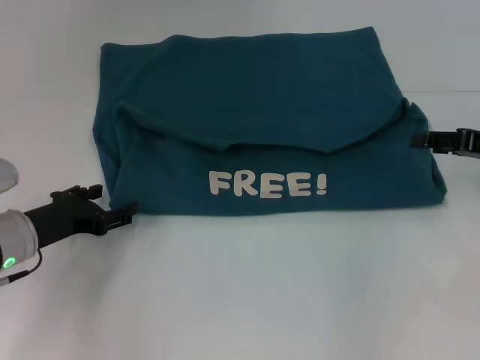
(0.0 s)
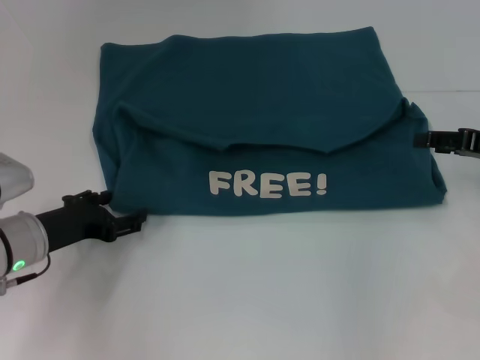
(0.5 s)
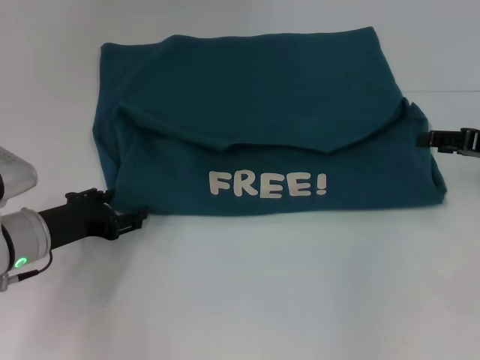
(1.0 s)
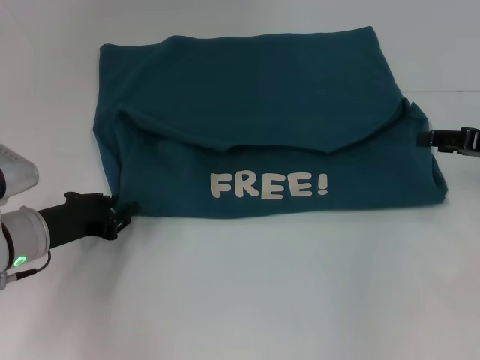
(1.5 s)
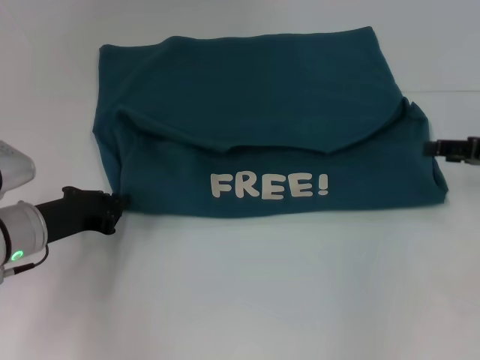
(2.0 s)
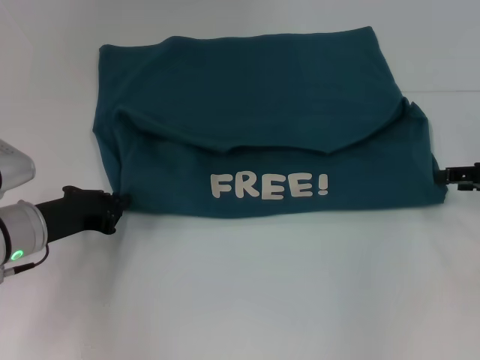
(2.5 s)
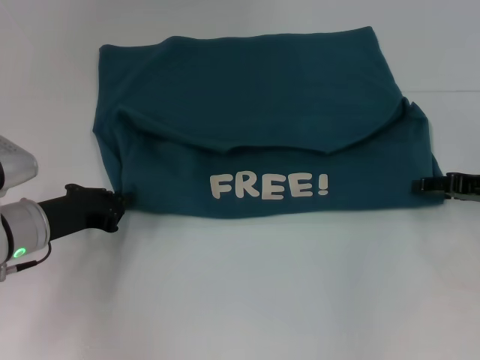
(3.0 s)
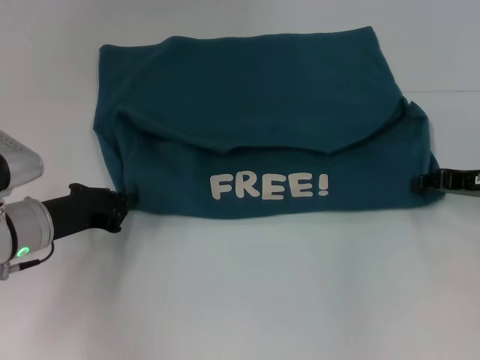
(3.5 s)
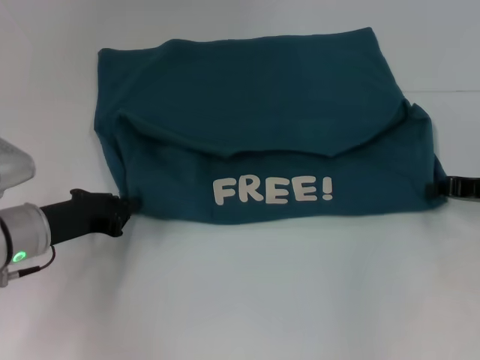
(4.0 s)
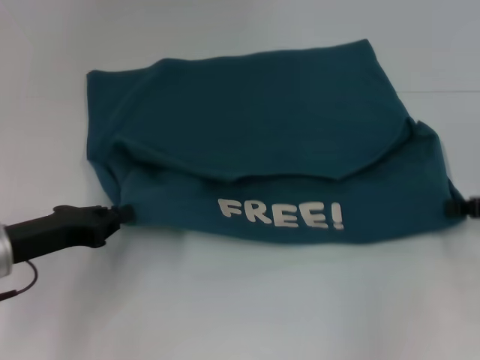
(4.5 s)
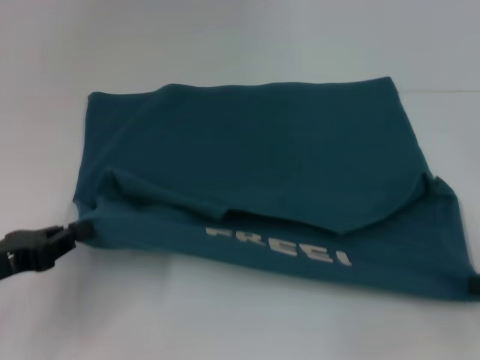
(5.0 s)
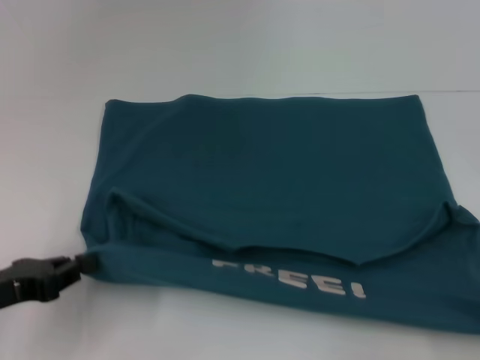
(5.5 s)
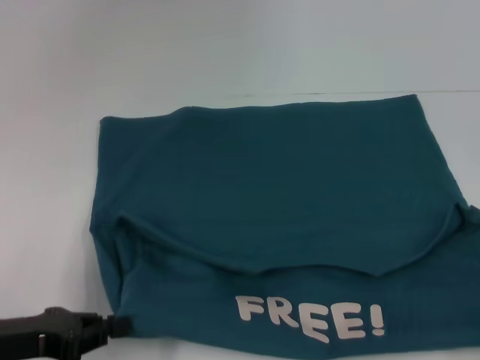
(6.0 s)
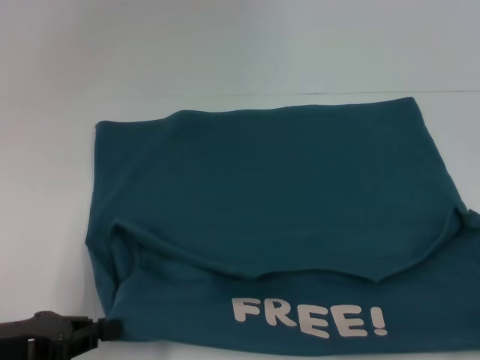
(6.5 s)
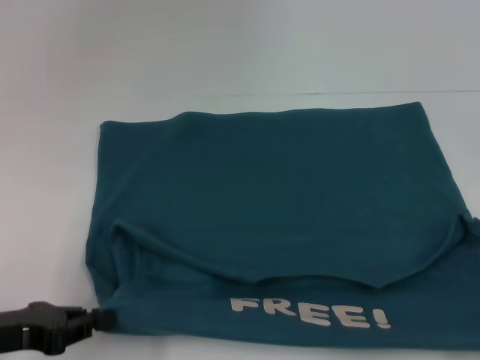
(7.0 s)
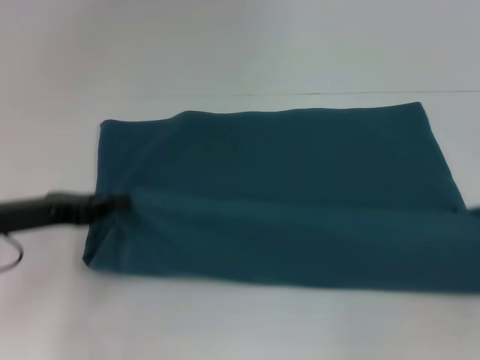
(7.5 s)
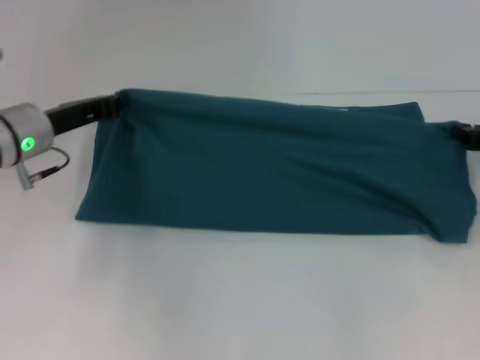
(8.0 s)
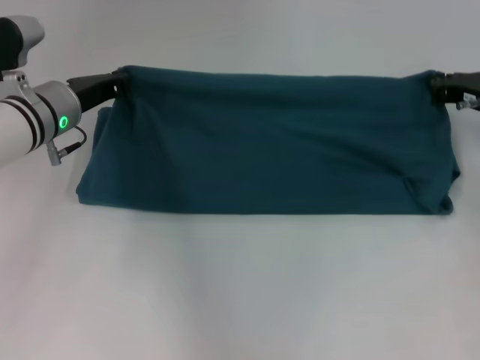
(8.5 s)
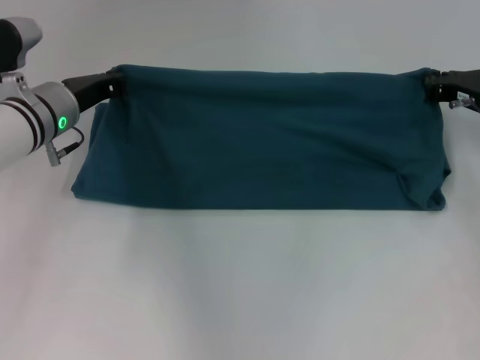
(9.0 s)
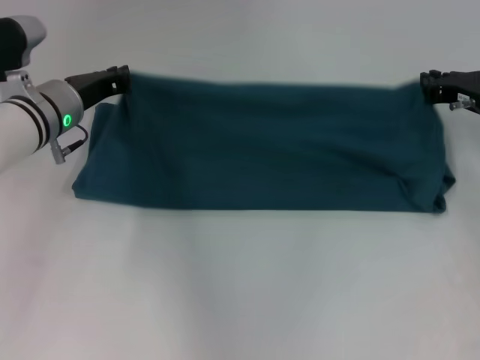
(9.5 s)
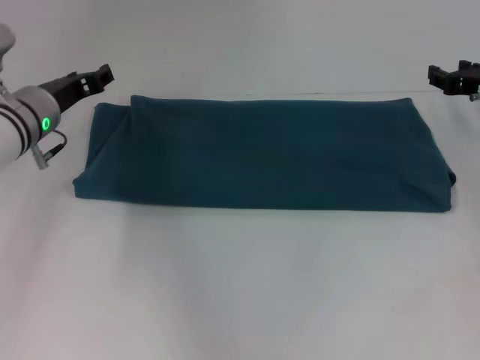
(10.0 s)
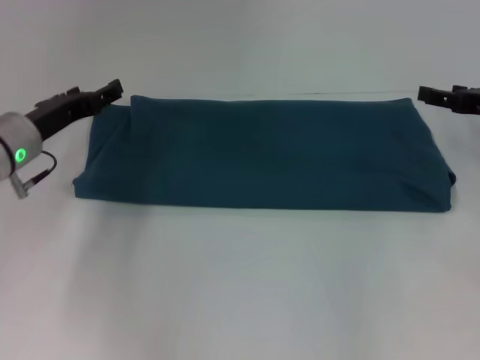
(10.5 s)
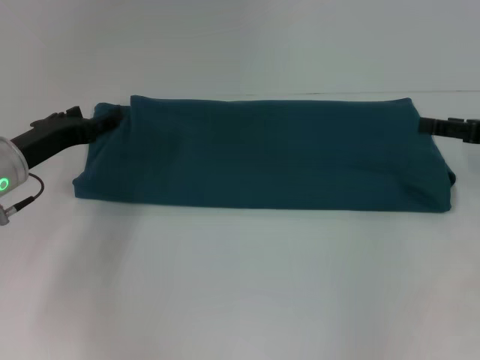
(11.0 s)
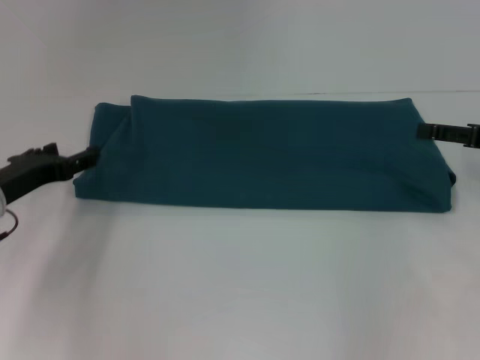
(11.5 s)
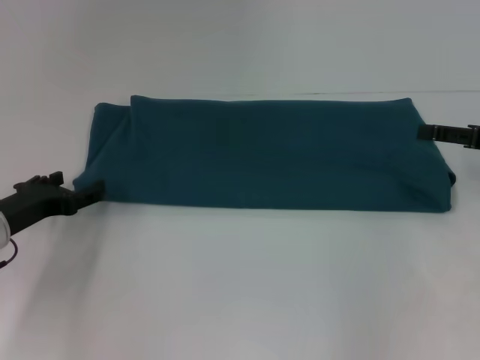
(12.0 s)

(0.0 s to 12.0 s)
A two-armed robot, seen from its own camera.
Step, 0.0 s - 6.5 s: Pull the clothes with your left hand.
Step, 0.0 s - 6.5 s: Pull the clothes with your right hand.
Step, 7.0 s - 10.5 s: Fold the clothes to the right.
0.0 s - 2.0 s: The left gripper closes its fingers.
2.0 s - 4.0 s: The right gripper closes up.
4.0 s - 6.0 s: The right gripper moves backward and to the right, approximately 20 cm. Meanwhile the left gripper shifts some 10 cm backward.
6.0 s - 8.0 s: The two grippers go roughly 20 cm forward.
8.0 s - 10.0 s: The right gripper changes place by roughly 5 cm, and opens. The left gripper opens its fingers.
10.0 s - 12.0 s: The left gripper is displaced backward, to the left and downward by about 15 cm, and opens its fingers. Meanwhile the right gripper is displaced backward by some 10 cm, and opens.

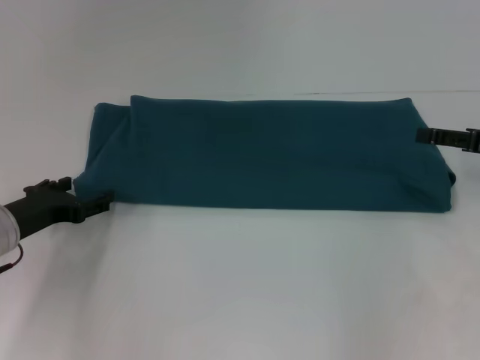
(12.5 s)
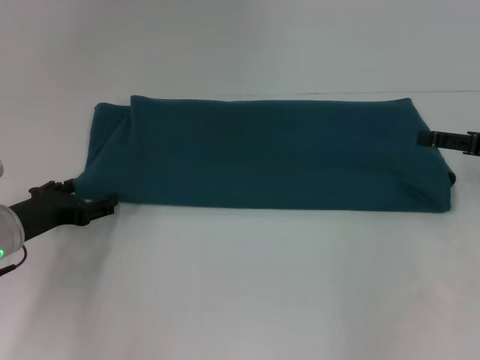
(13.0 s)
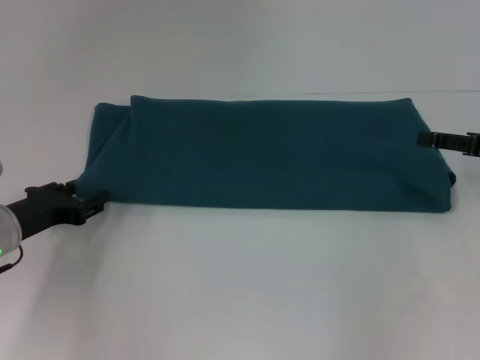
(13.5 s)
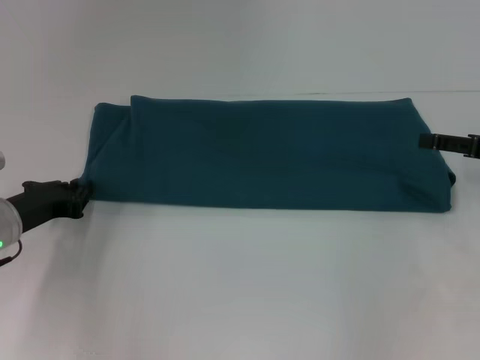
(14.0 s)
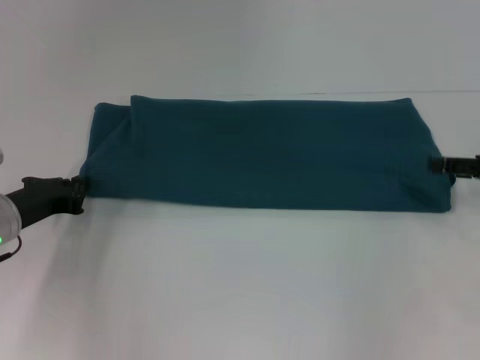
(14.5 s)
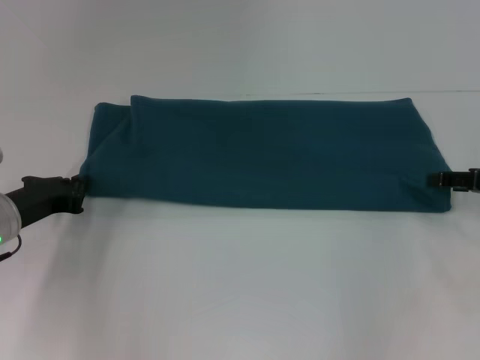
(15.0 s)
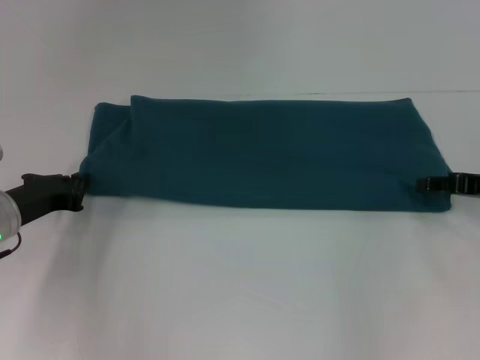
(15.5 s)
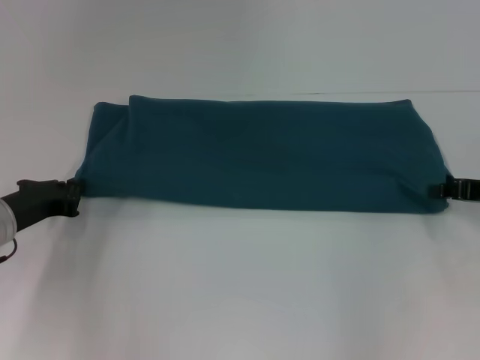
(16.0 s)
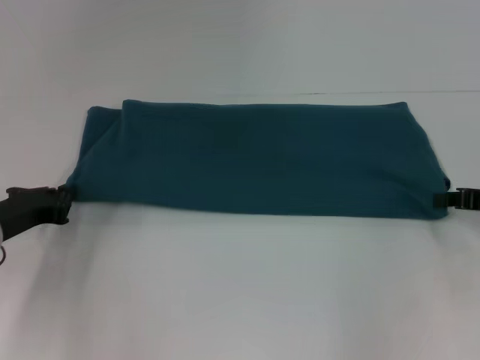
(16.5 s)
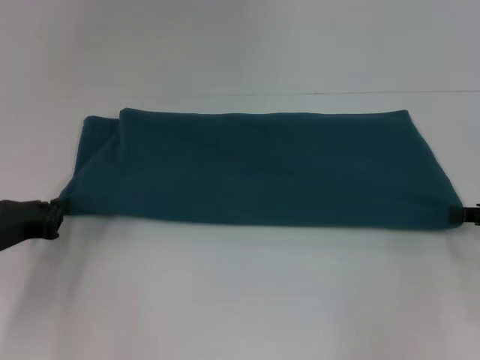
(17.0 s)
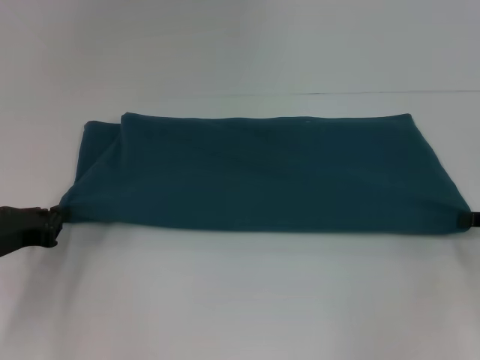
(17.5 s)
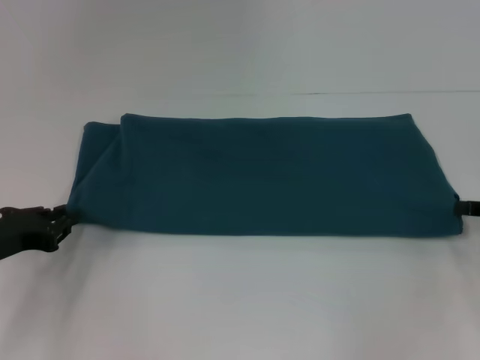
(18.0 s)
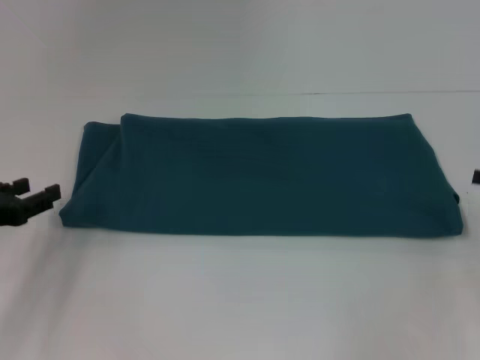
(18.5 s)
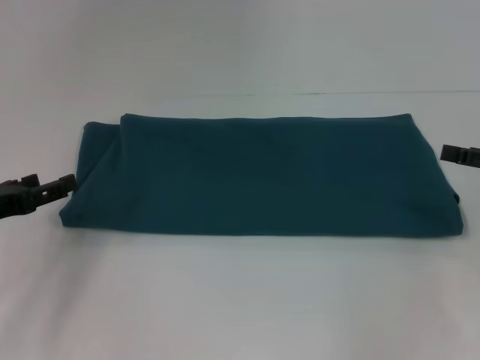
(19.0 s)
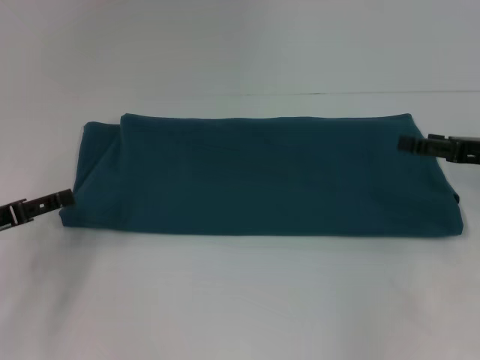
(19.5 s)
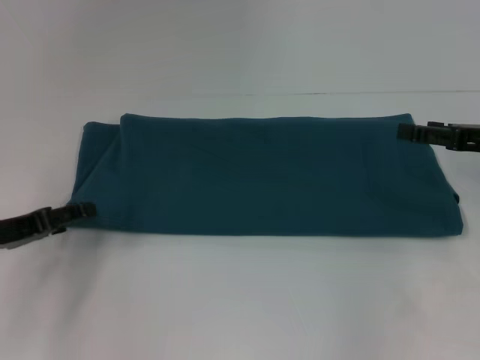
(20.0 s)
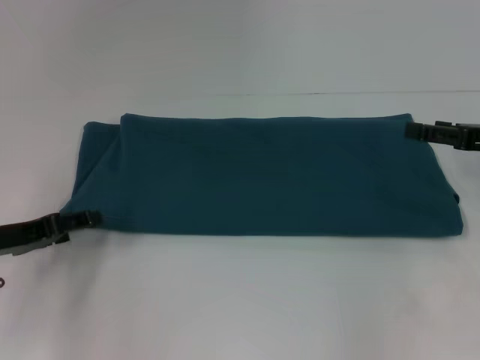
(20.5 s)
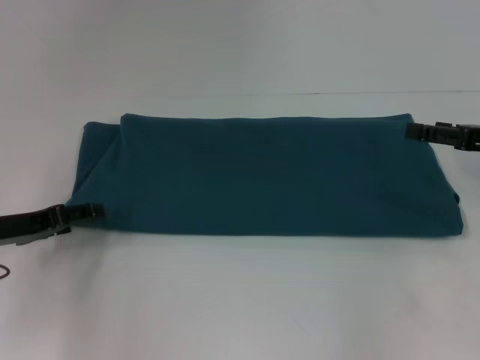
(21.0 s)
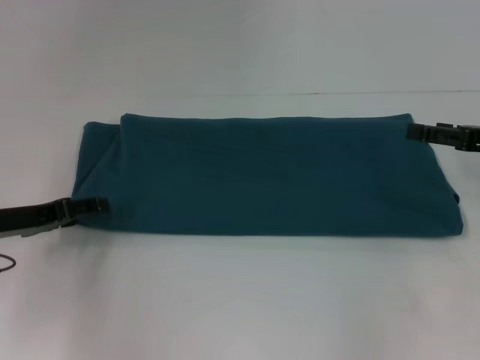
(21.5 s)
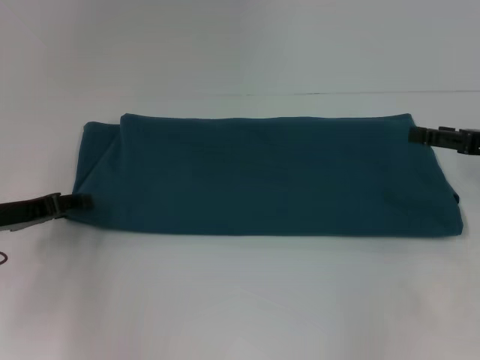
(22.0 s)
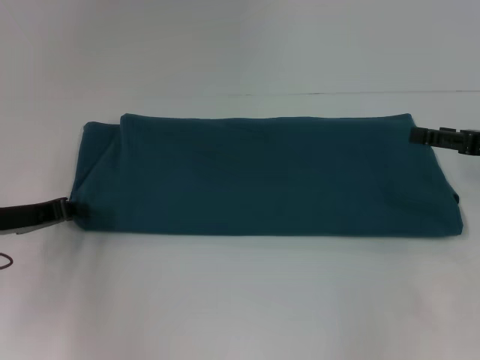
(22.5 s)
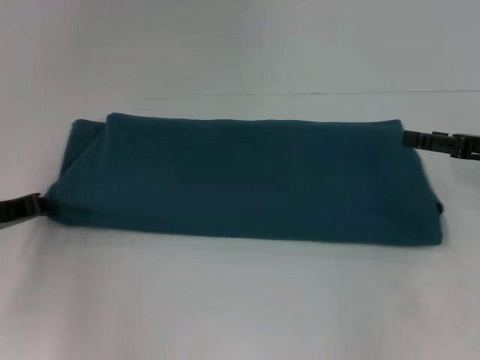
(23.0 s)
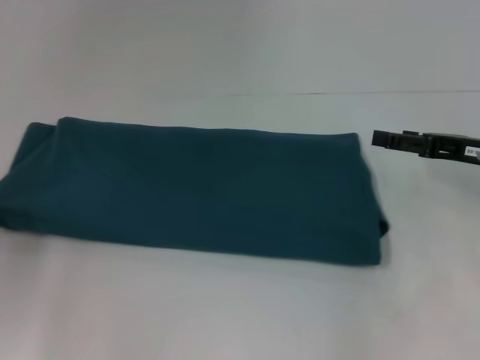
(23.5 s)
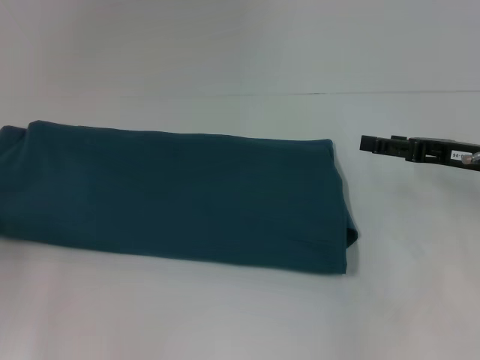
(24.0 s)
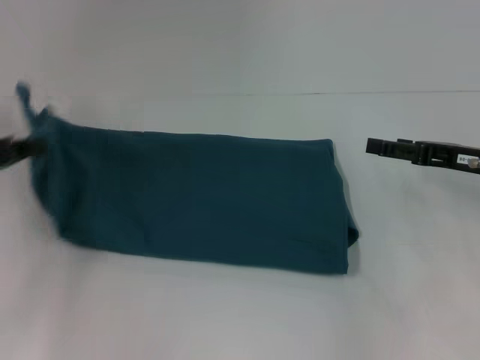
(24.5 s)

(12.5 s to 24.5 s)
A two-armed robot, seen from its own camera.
12.5 s - 14.5 s: The left gripper closes up.
14.5 s - 16.5 s: The right gripper closes up.
16.5 s - 18.5 s: The left gripper changes place by about 5 cm. The right gripper moves about 5 cm.
18.5 s - 20.5 s: The right gripper heads to the left, covering approximately 5 cm, and opens up, while the left gripper opens its fingers.
20.5 s - 22.5 s: The left gripper closes.
22.5 s - 24.5 s: The left gripper moves upward, roughly 5 cm, moves approximately 10 cm to the left and comes back, and closes.

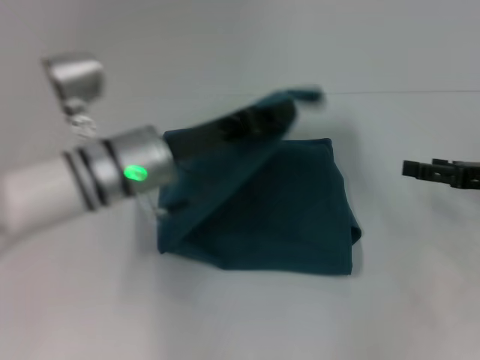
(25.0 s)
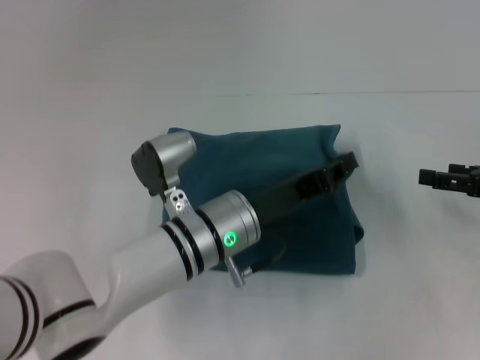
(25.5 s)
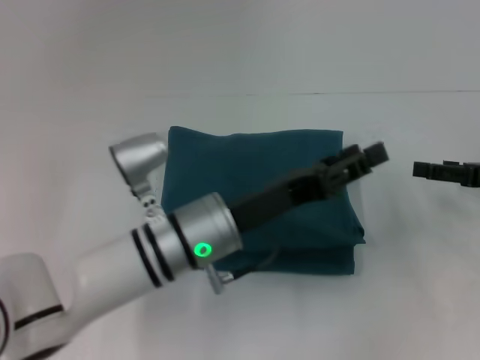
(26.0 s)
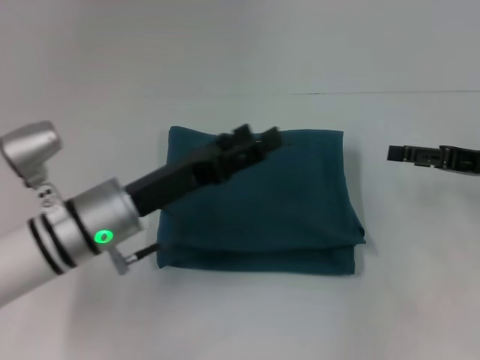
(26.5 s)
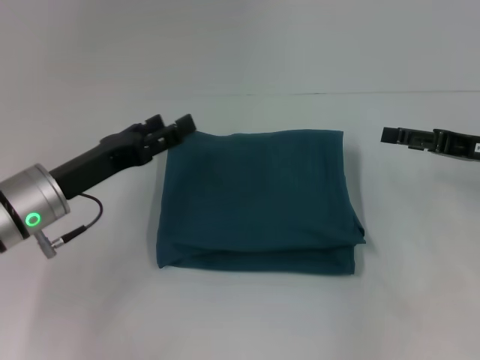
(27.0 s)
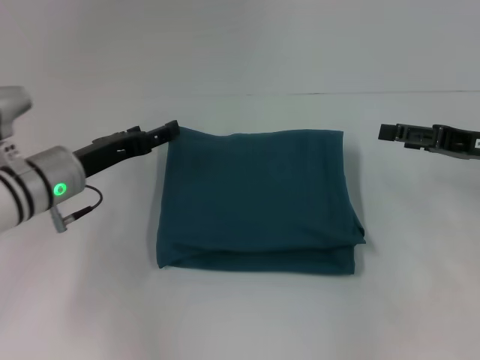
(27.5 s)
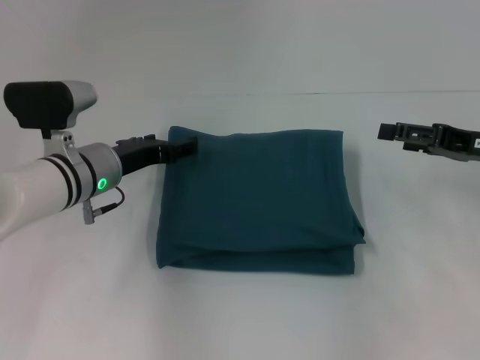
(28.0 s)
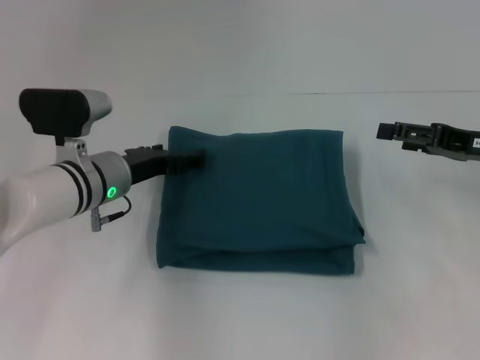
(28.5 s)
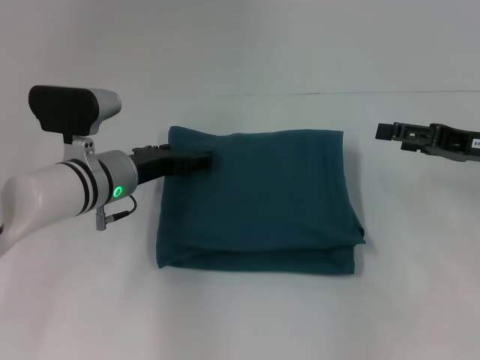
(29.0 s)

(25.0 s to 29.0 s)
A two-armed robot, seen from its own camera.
25.0 s - 27.0 s: The left gripper goes about 10 cm to the left, and opens its fingers.
27.0 s - 29.0 s: The left gripper heads forward and to the right, covering roughly 10 cm.
